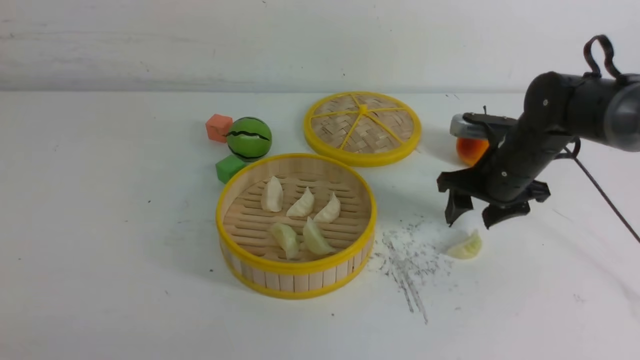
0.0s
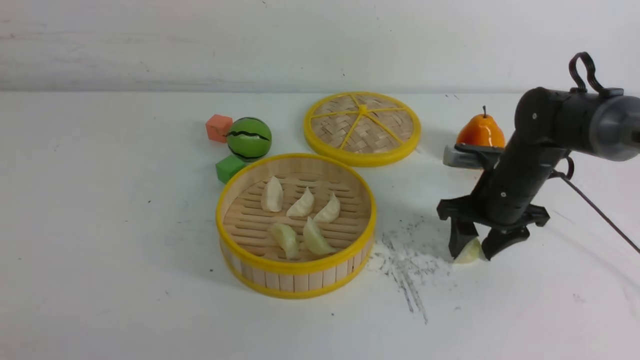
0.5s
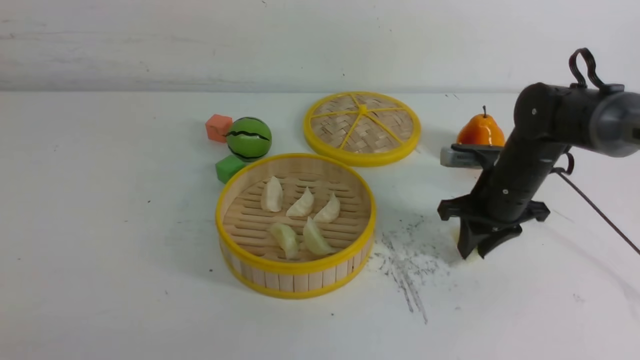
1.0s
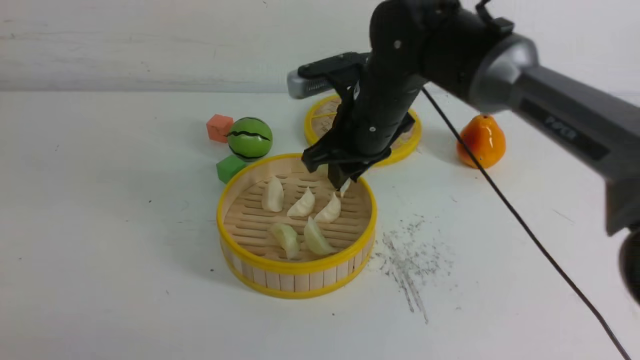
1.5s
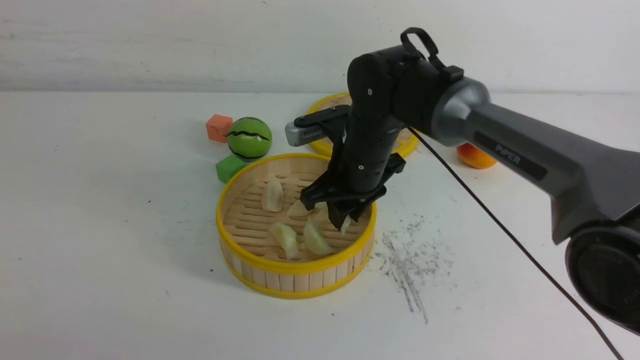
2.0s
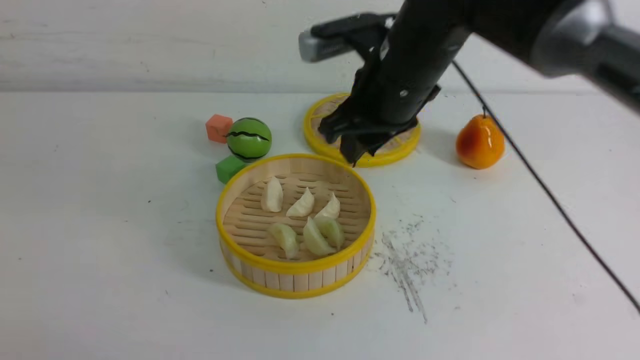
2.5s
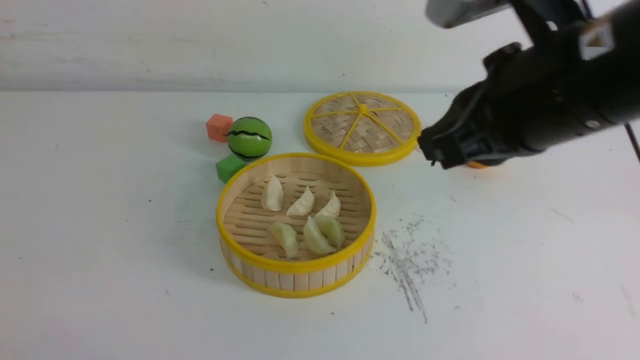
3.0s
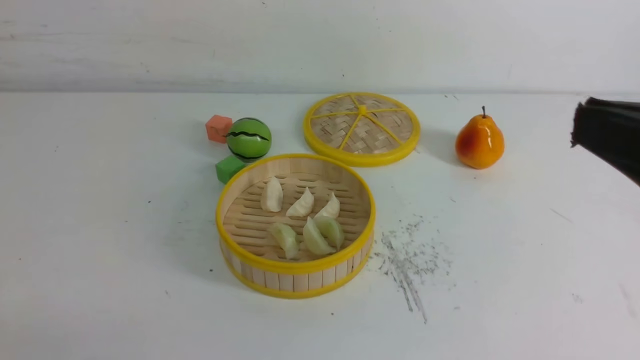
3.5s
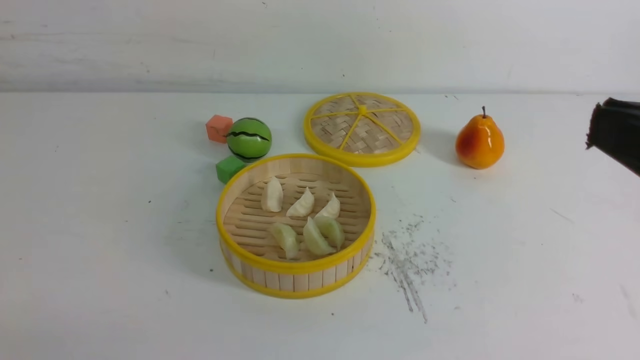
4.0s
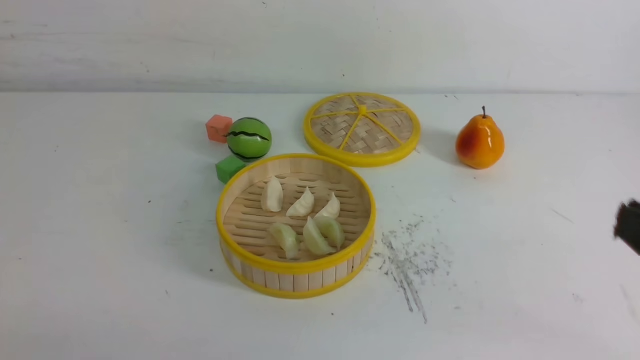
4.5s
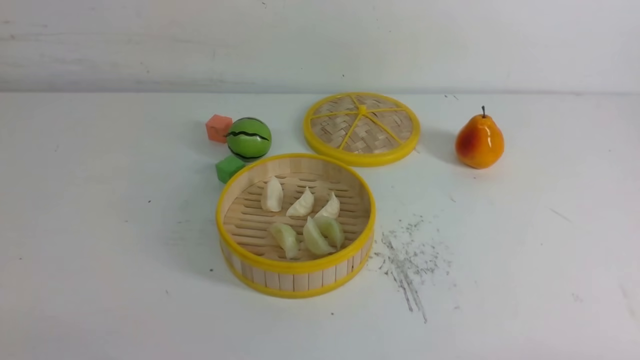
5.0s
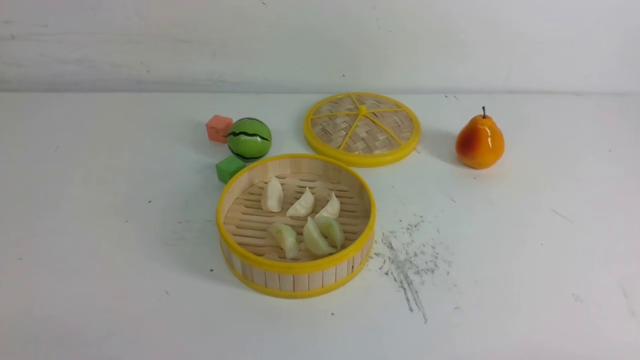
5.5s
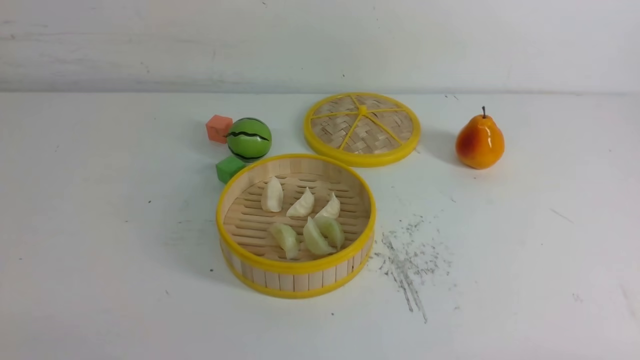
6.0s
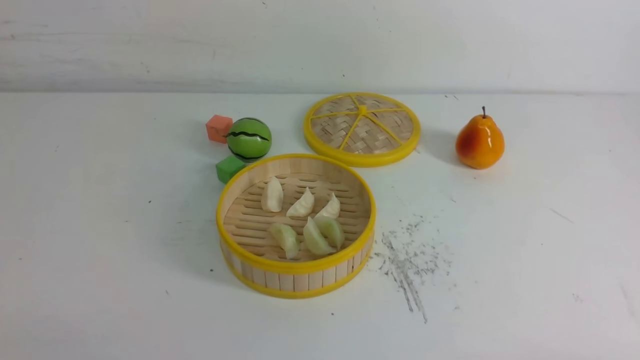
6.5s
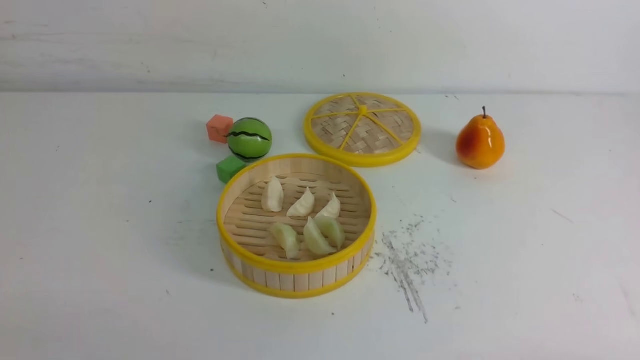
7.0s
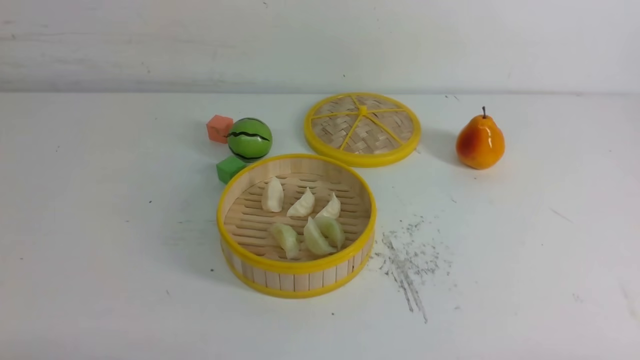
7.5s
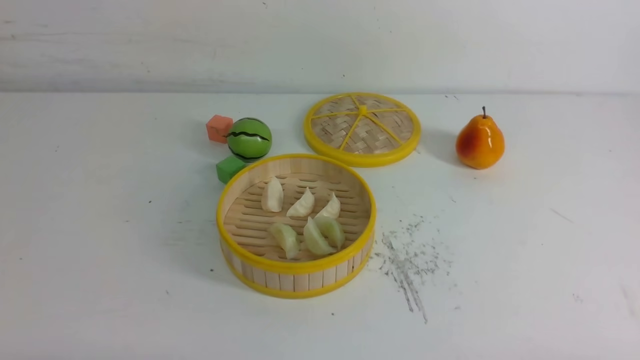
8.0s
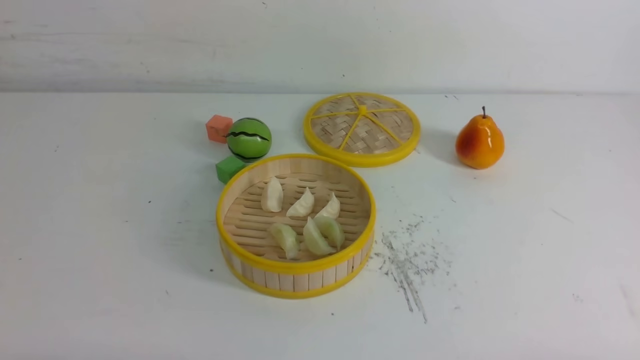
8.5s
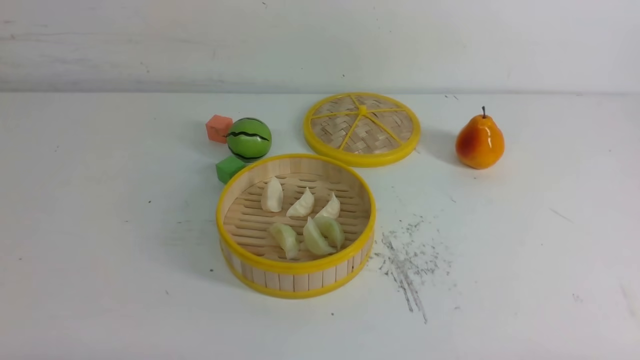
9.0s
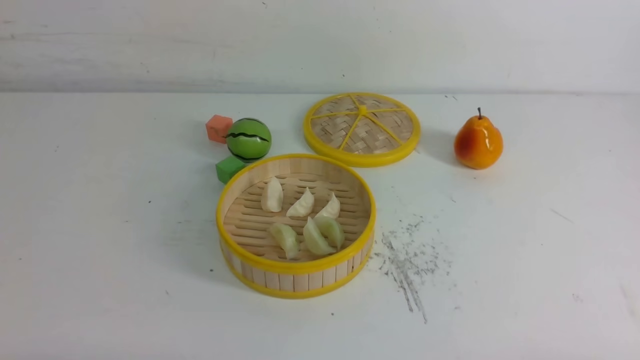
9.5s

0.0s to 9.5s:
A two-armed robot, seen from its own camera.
Task of the whole recording: put the dumplings into the steamer on the white table.
Step, 1.0s to 2.0s: use the right arm to put the dumpling into the steamer.
0.0s to 2.0s: The right gripper moves to the left, about 20 cm, and closes up.
2.0s to 4.0s: The left gripper goes some 5 cm downward, while the right gripper is displaced backward, to the right and upward by about 40 cm, and closes its fingers.
4.0s to 5.5s: The right gripper moves downward, approximately 25 cm.
